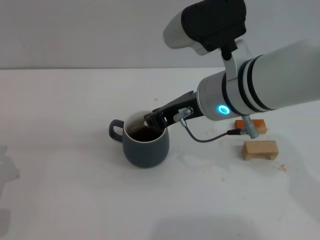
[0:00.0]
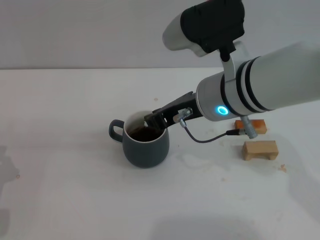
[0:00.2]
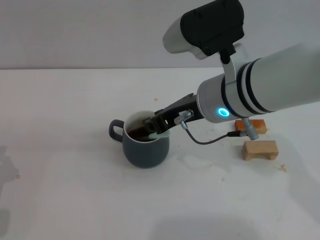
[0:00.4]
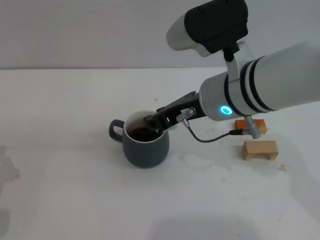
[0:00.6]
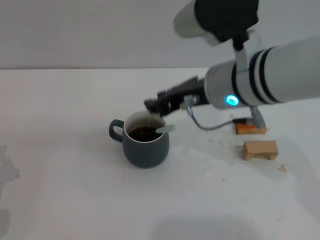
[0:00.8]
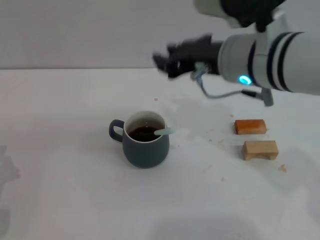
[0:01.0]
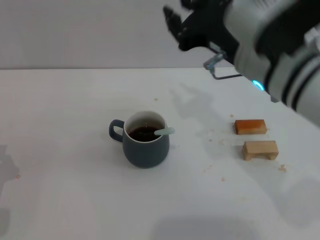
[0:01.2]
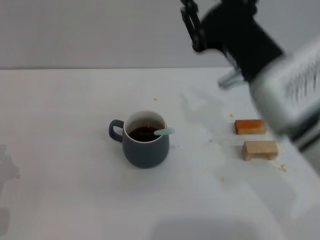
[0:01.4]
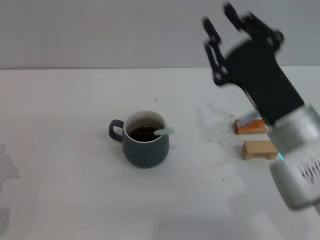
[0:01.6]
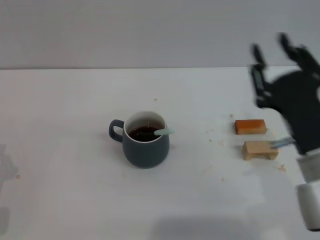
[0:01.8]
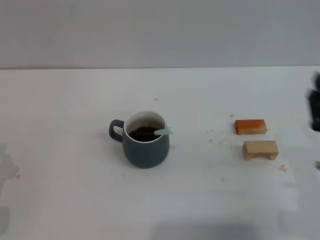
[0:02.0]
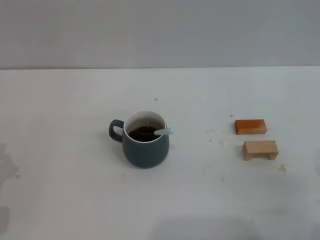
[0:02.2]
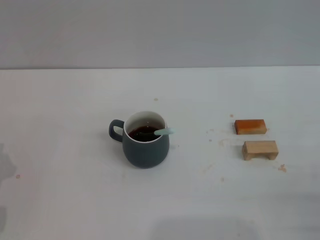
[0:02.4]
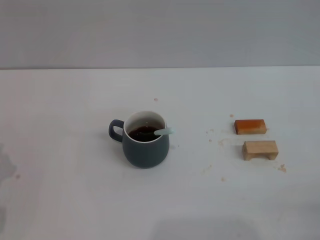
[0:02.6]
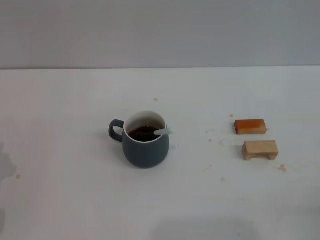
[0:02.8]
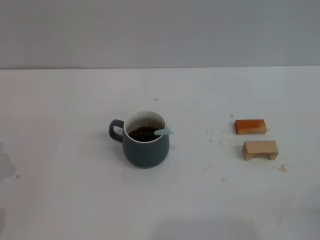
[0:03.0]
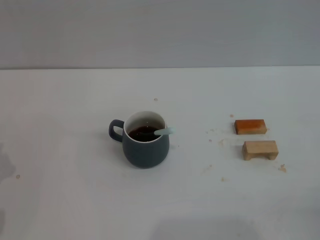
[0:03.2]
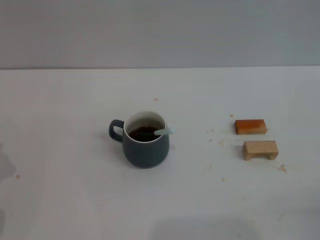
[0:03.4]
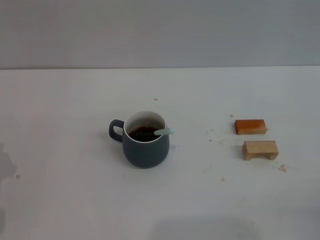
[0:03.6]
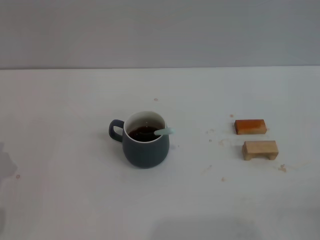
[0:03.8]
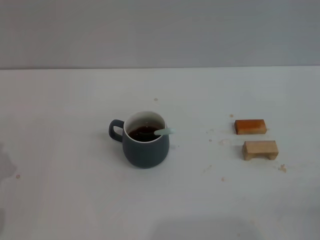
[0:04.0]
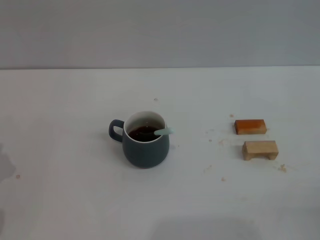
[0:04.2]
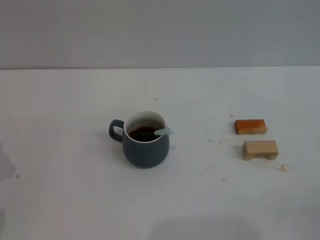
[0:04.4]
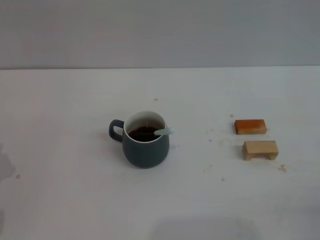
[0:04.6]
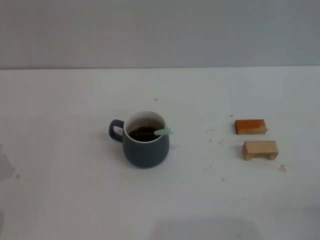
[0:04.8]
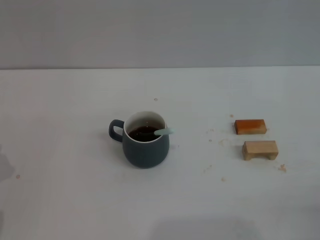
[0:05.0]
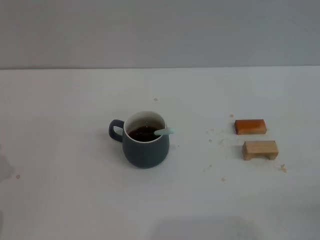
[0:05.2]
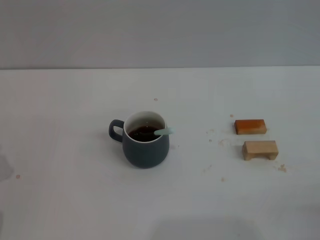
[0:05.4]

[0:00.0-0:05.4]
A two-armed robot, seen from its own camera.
Task of the whole recording: Move the grey cup to the center, lift the blue spoon, stir it three times in the cup, and put the spoon into the cup.
0:00.0 to 0:01.4: The right gripper is displaced to the right by some 5 cm.
0:01.4 to 0:02.8: The right gripper moves to the right, downward and backward, about 30 cm, and opens up.
0:02.8 to 0:05.4: The two grippers keep their place.
